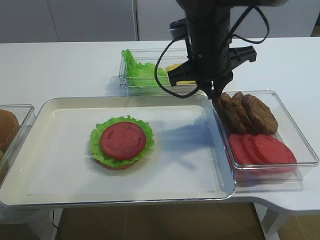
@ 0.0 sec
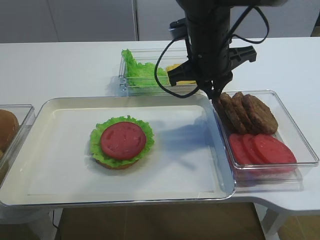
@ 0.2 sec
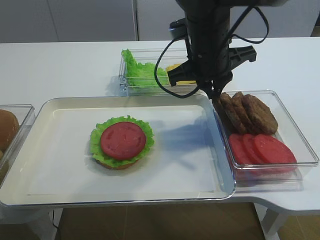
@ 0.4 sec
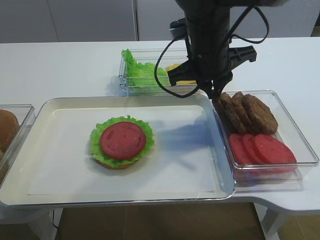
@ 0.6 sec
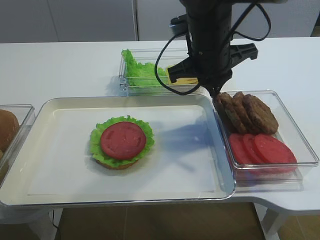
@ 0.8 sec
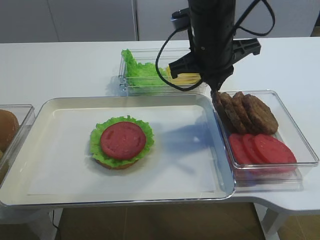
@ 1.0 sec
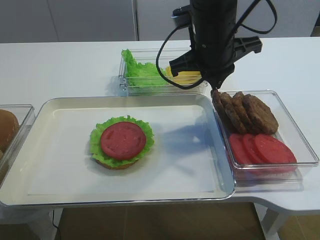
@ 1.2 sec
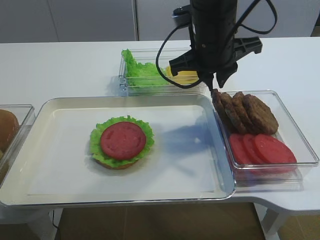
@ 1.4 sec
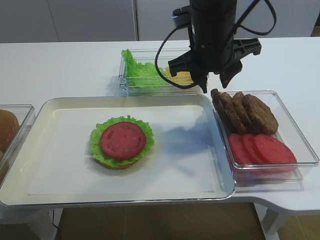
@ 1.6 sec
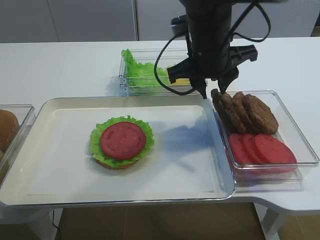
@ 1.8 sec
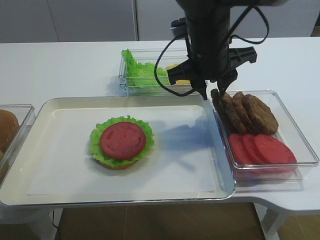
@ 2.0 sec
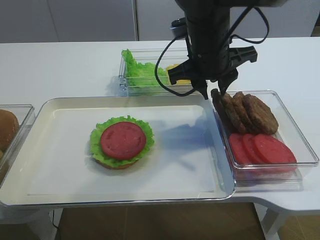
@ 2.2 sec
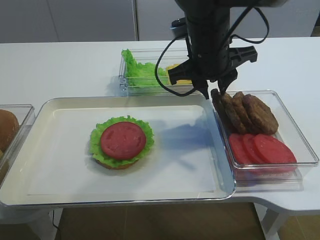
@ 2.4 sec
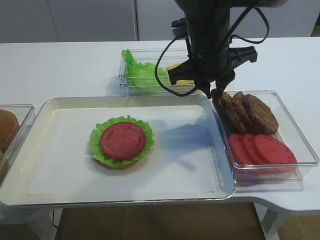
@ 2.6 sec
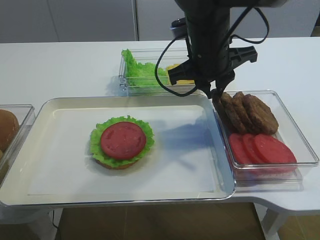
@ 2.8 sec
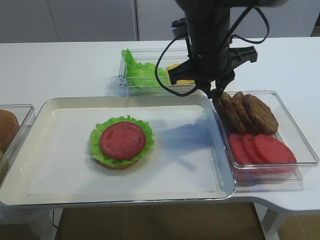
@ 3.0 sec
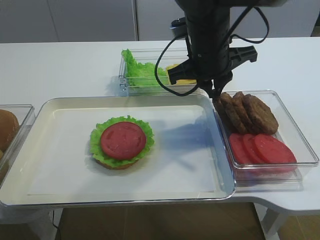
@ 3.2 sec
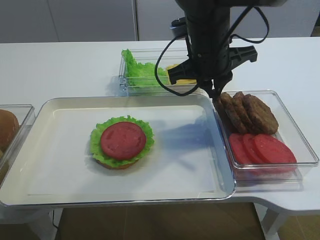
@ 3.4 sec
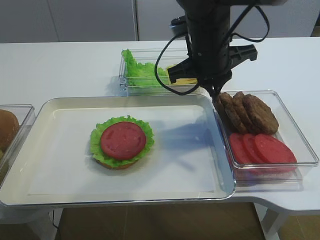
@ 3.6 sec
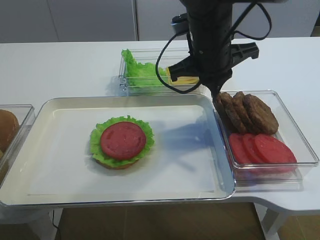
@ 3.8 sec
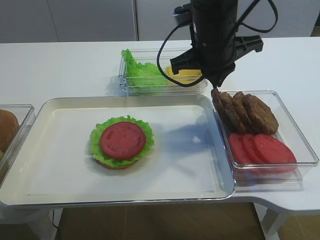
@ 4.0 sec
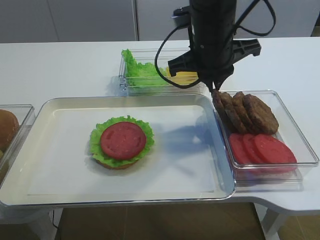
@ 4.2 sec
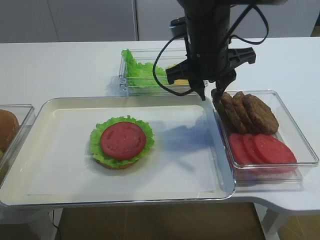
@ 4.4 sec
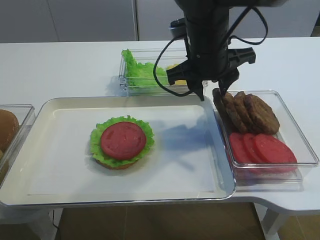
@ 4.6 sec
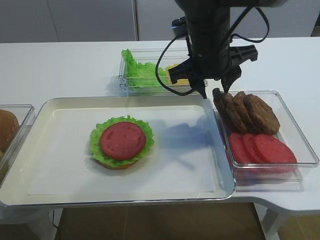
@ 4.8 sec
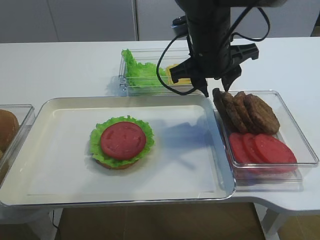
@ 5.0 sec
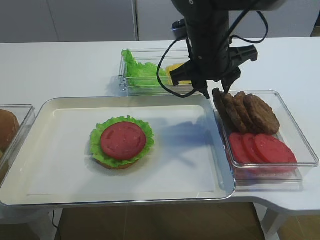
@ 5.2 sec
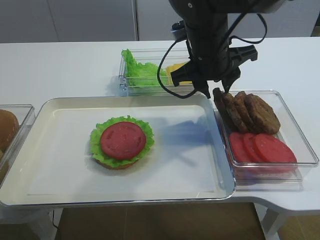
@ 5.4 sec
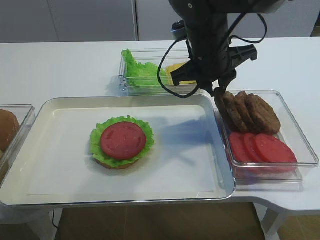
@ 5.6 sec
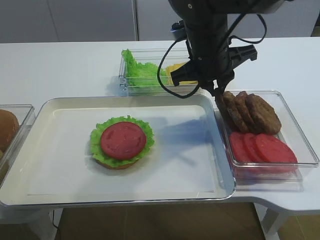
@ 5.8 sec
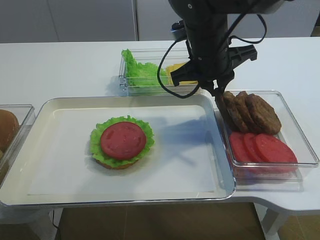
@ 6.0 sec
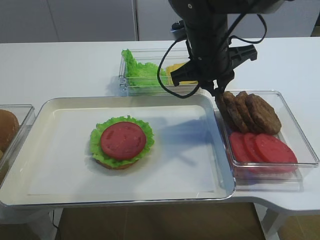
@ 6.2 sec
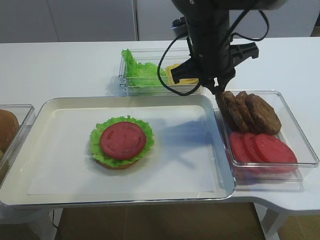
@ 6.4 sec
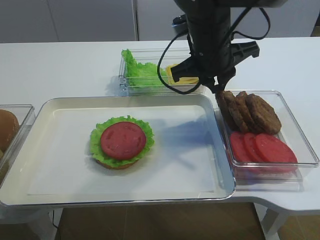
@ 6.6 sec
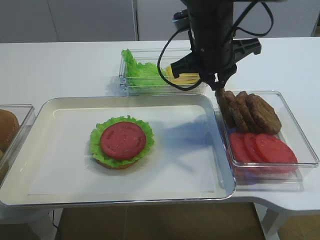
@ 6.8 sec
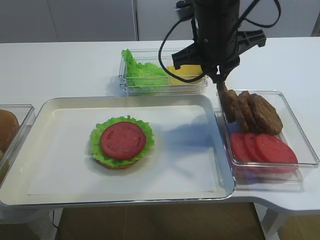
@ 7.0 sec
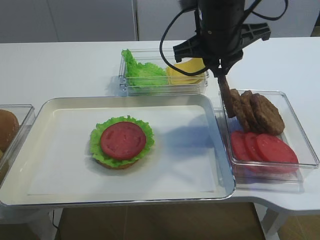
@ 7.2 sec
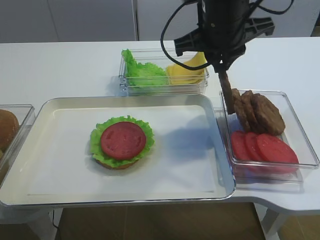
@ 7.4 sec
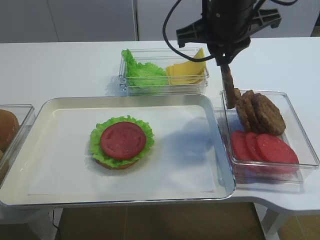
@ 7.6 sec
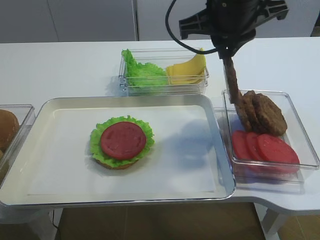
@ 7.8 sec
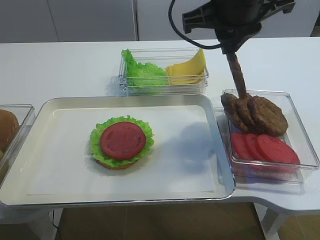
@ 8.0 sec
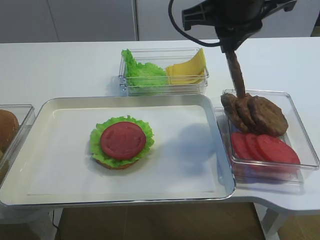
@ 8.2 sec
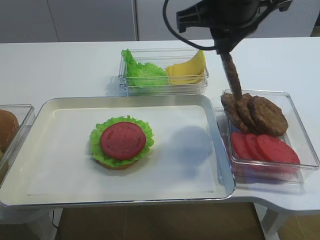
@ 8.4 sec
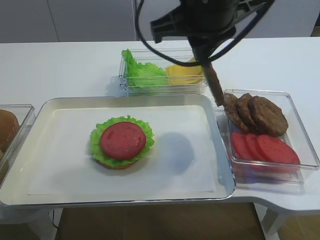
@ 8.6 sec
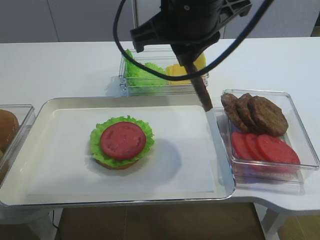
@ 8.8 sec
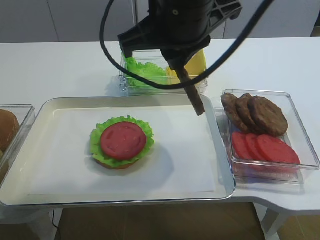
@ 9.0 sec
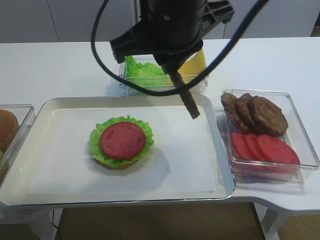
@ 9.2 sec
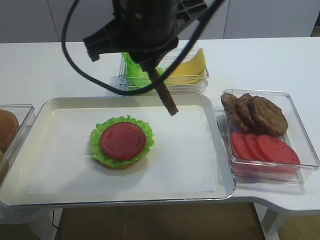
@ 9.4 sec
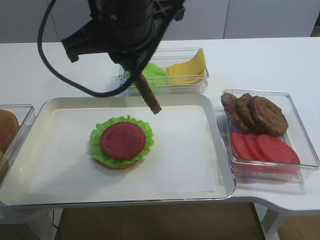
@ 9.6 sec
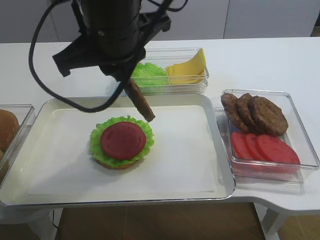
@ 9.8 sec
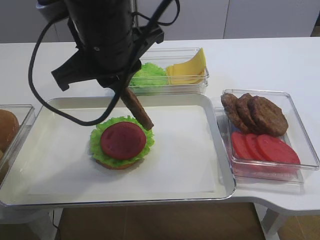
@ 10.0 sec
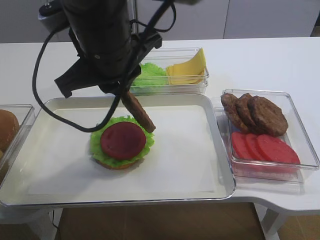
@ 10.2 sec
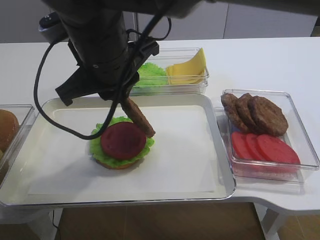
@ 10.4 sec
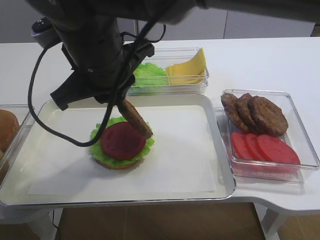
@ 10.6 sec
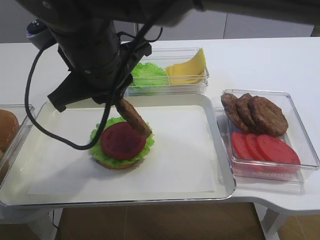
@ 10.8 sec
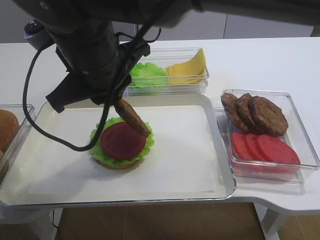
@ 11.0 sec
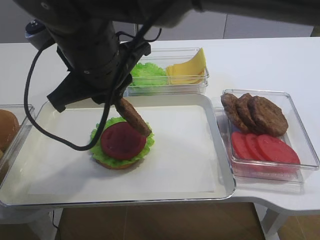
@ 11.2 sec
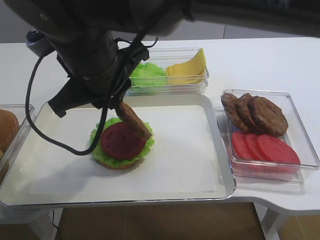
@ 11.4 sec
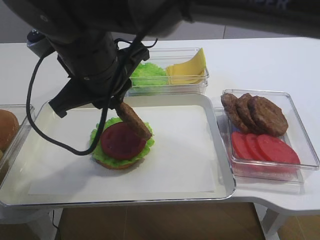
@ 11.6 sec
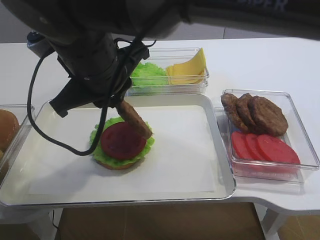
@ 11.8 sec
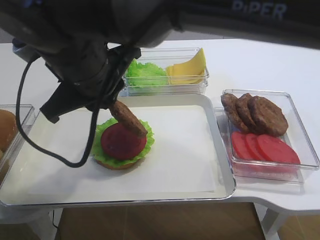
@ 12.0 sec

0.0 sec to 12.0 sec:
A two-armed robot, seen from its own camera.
Step, 0.0 sec to 7.6 sec: Pick up the cutlet with the right gripper.
0.0 sec to 1.6 sec: The right gripper opens up.
1.6 sec to 3.0 sec: The right gripper closes its fingers.
3.0 sec to 4.4 sec: The grippers move only a little.
4.4 sec to 6.0 sec: The right gripper closes its fingers.
6.0 sec to 7.6 sec: The right gripper is displaced upward by some 5 cm.
7.6 sec to 9.0 sec: The right gripper goes roughly 10 cm backward and to the left.
9.0 sec to 10.4 sec: The right gripper travels to the left and downward by about 10 cm.

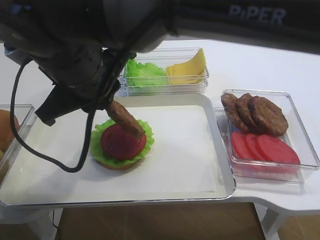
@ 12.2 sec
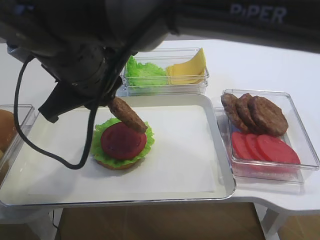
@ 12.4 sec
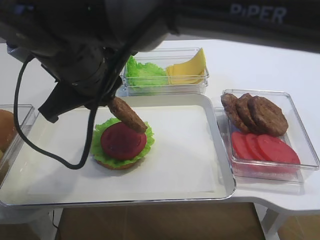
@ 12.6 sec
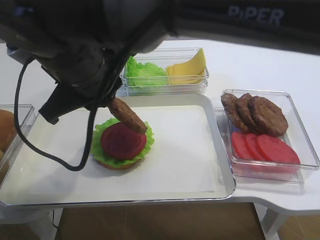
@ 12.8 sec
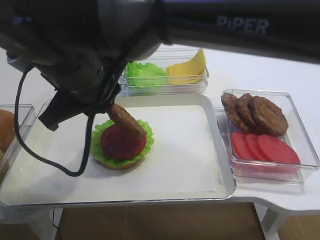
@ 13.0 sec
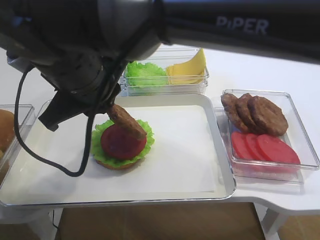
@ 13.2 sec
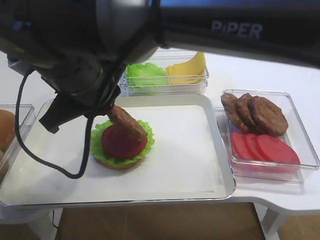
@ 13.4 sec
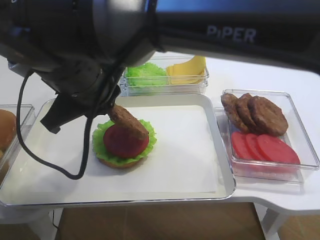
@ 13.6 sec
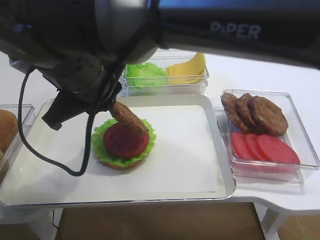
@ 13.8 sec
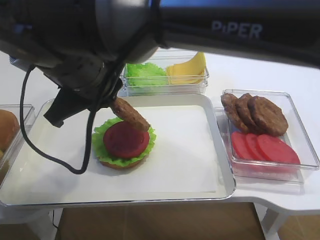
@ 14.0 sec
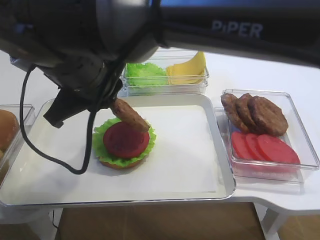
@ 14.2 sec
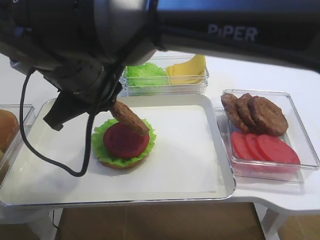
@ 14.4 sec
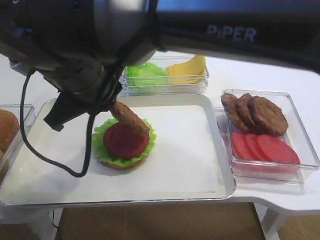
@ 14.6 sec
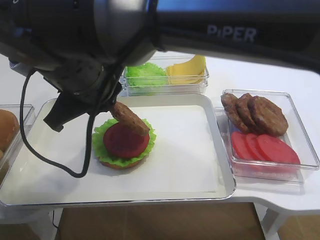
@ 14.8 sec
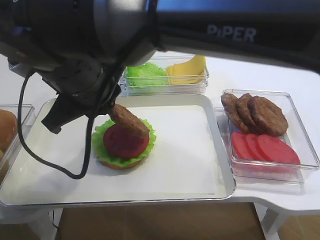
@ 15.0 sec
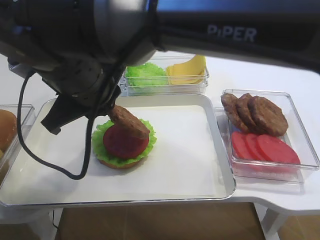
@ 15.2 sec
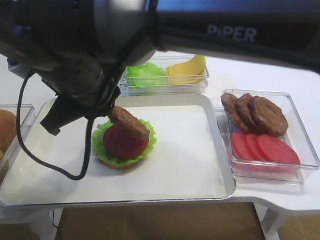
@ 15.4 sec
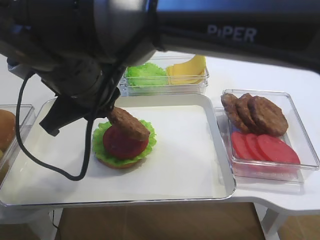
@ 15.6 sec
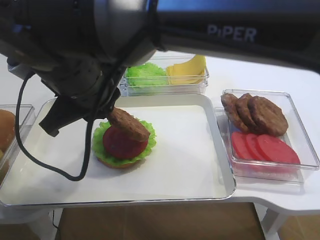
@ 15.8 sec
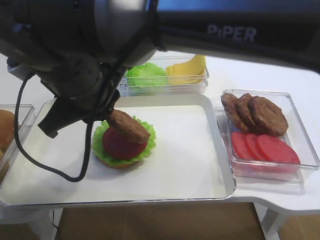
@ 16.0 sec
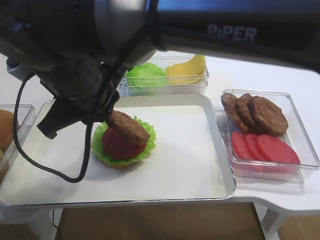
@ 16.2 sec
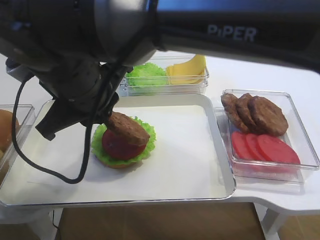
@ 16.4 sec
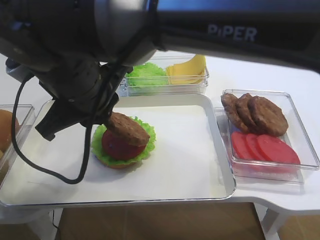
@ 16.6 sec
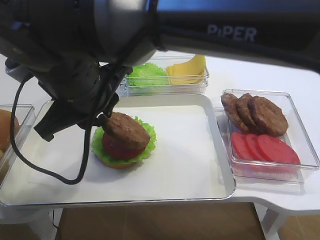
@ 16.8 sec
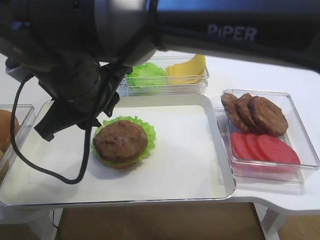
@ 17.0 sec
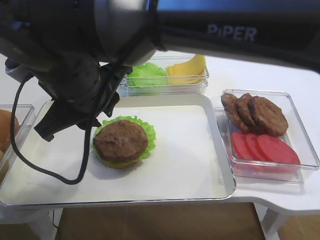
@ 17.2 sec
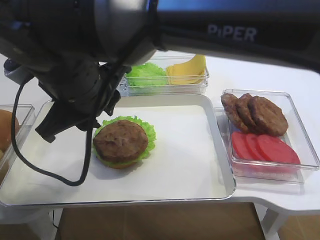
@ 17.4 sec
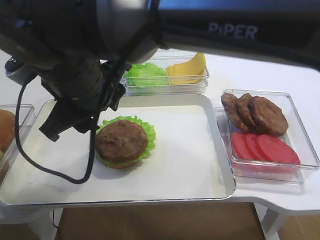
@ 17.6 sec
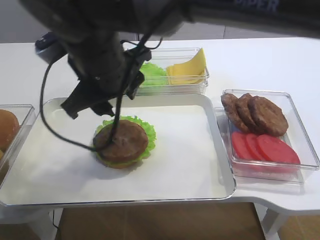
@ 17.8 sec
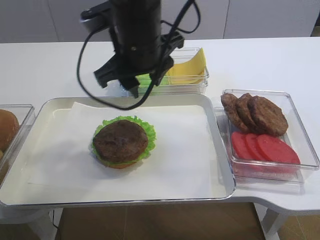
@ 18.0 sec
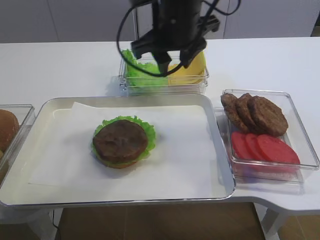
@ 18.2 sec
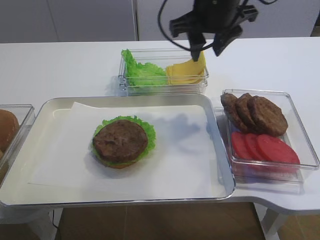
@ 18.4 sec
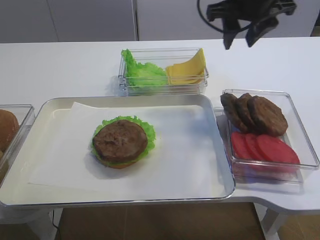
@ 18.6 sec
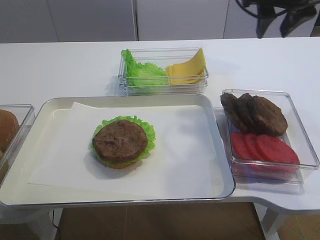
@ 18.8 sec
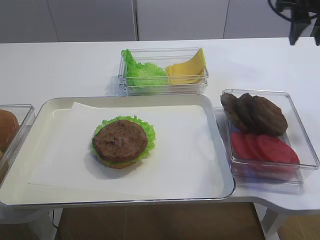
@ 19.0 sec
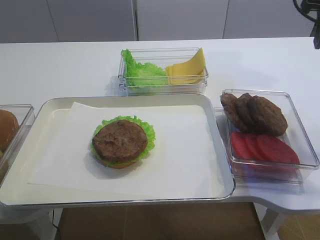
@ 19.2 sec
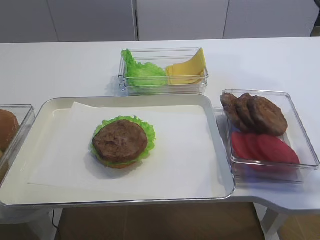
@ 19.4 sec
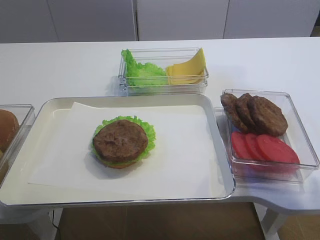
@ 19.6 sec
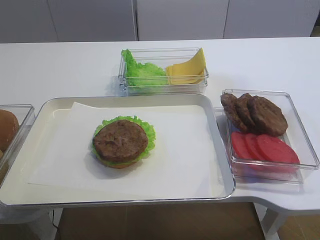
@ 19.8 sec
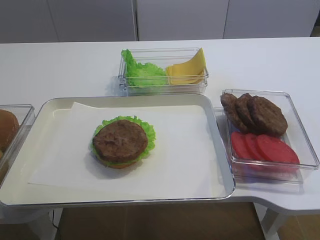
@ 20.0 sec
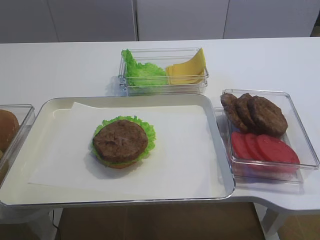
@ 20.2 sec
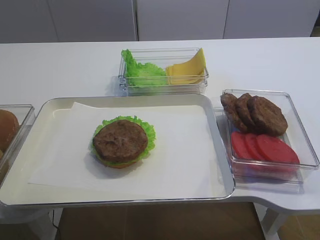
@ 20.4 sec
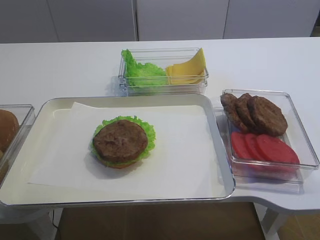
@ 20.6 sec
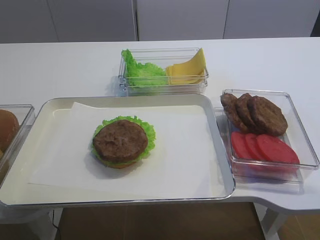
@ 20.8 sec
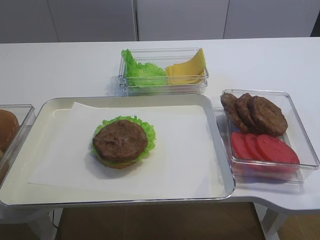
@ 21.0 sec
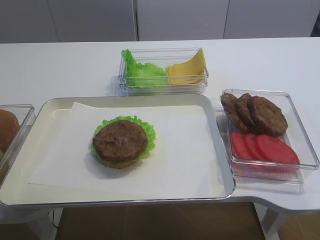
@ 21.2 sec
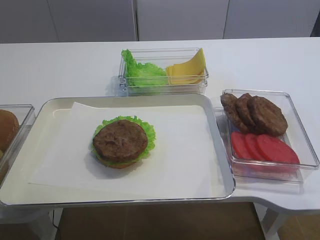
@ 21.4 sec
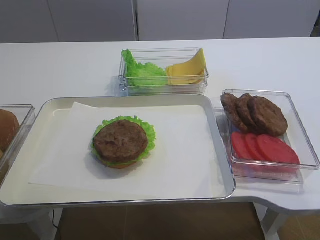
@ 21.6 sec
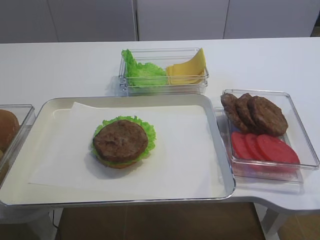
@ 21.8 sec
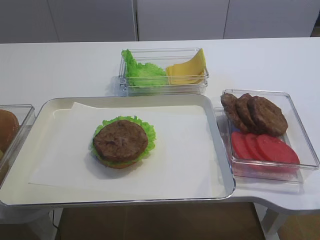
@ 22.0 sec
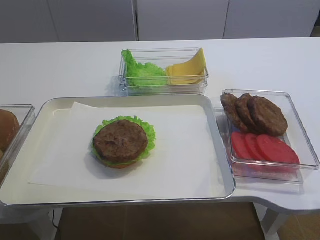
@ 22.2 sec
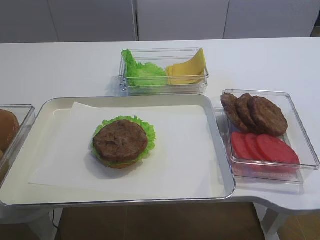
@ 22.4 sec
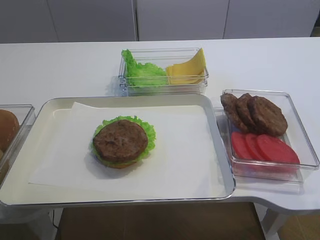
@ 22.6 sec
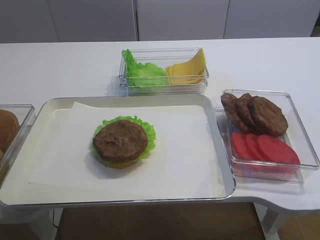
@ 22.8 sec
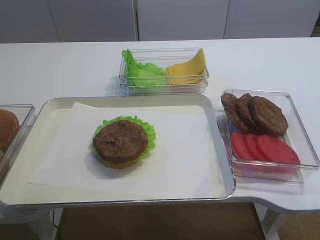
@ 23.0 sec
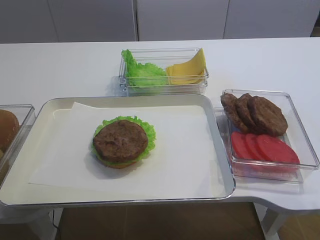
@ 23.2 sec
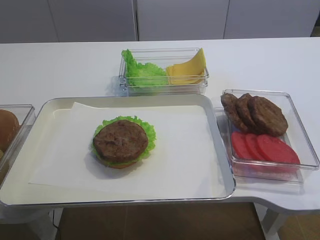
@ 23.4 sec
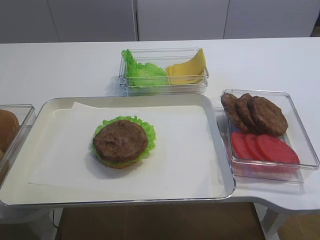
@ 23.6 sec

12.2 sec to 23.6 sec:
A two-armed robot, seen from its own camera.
Step, 12.2 sec to 17.2 sec: Place the cutlet on the tomato slice with the right gripper.
12.2 sec to 13.6 sec: There are only small adjustments of the grippers.
13.6 sec to 16.4 sec: Neither gripper changes place.
16.4 sec to 17.8 sec: The right gripper opens.
17.8 sec to 19.4 sec: The right gripper travels to the right by about 35 cm.
19.4 sec to 20.8 sec: The right gripper is displaced backward by some 30 cm.
20.8 sec to 22.2 sec: The right gripper moves downward, approximately 5 cm.
22.2 sec to 23.6 sec: Both grippers stay put.
